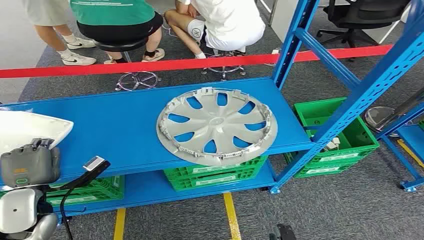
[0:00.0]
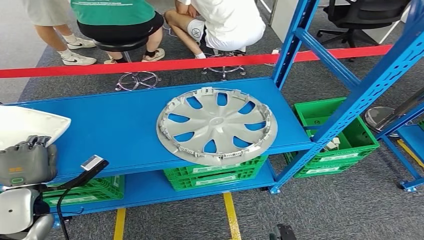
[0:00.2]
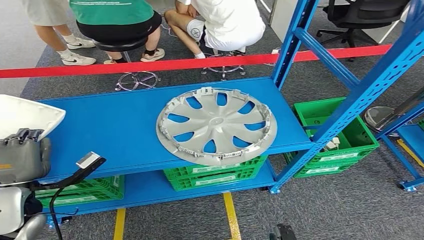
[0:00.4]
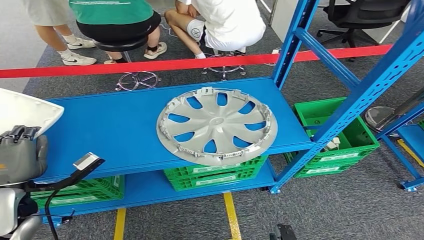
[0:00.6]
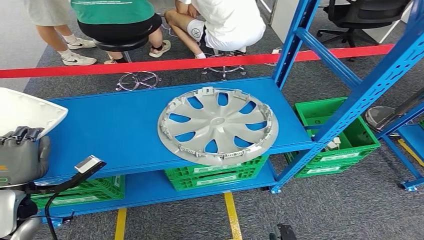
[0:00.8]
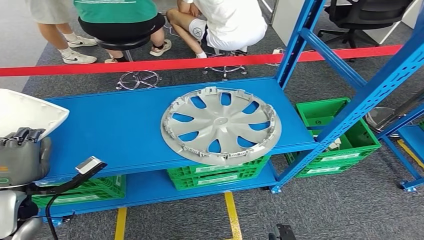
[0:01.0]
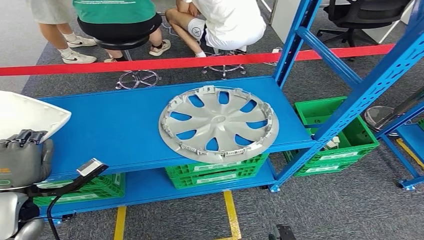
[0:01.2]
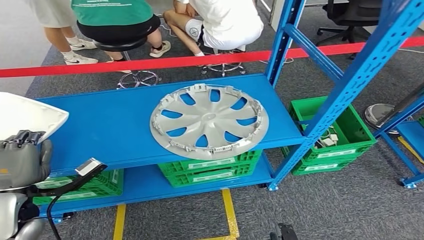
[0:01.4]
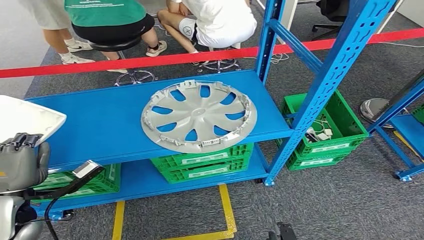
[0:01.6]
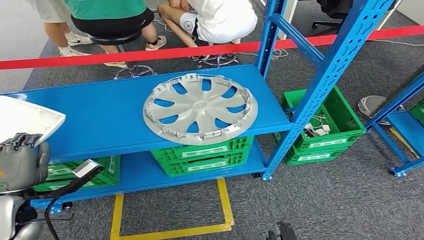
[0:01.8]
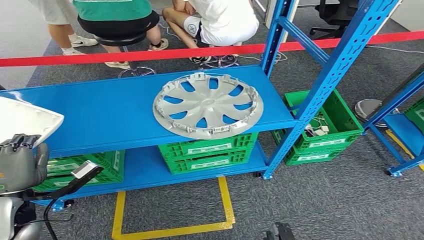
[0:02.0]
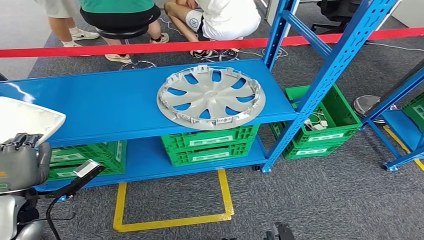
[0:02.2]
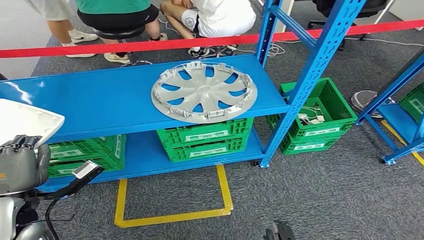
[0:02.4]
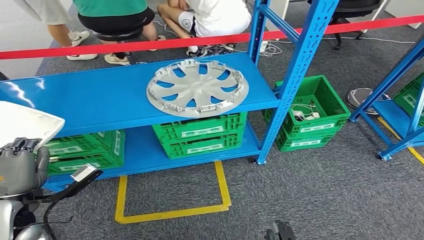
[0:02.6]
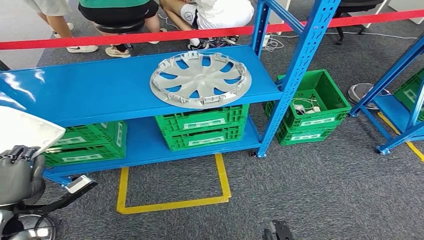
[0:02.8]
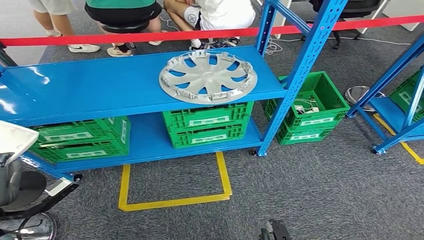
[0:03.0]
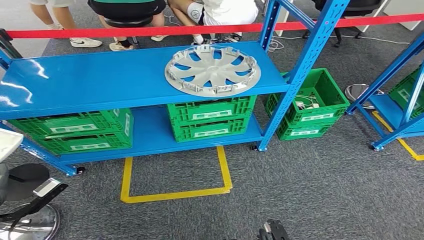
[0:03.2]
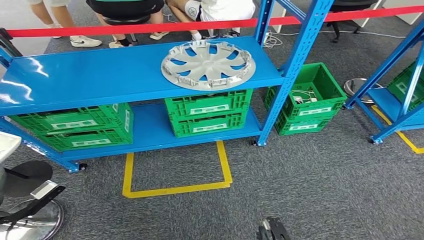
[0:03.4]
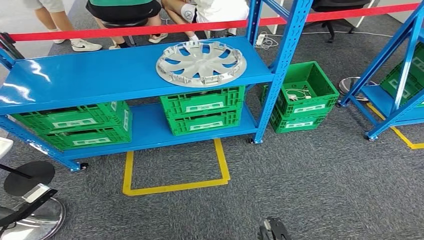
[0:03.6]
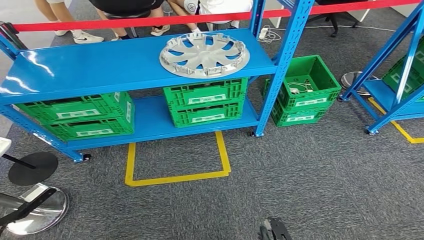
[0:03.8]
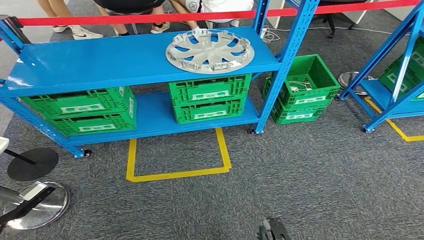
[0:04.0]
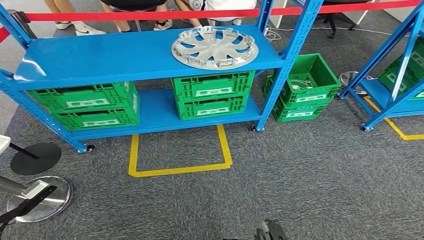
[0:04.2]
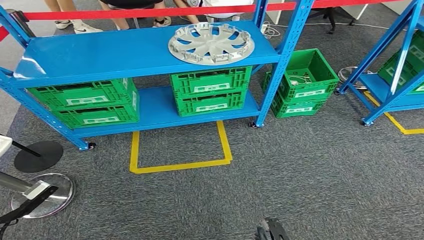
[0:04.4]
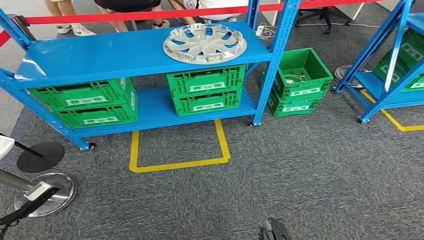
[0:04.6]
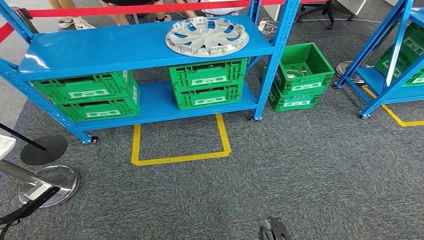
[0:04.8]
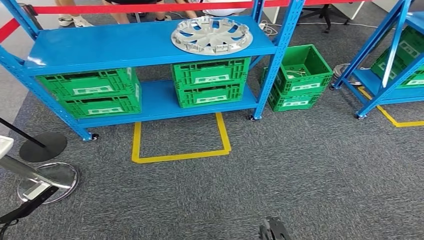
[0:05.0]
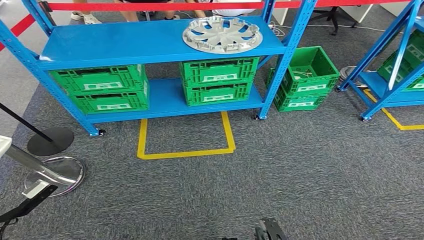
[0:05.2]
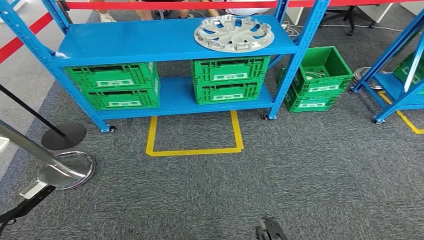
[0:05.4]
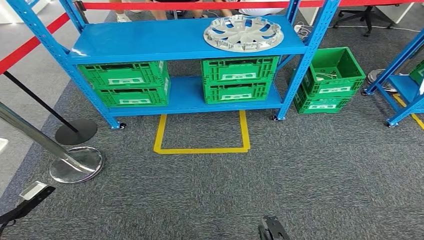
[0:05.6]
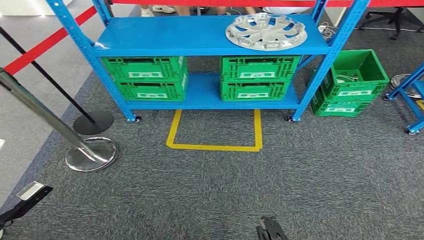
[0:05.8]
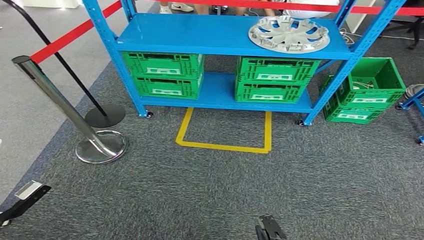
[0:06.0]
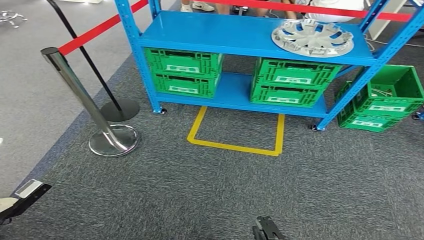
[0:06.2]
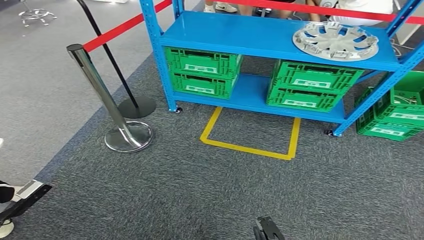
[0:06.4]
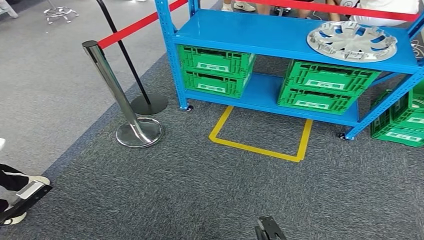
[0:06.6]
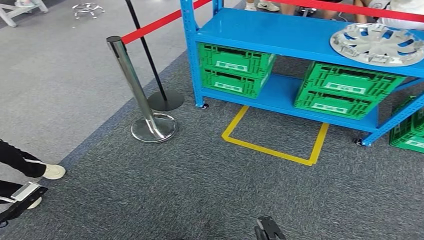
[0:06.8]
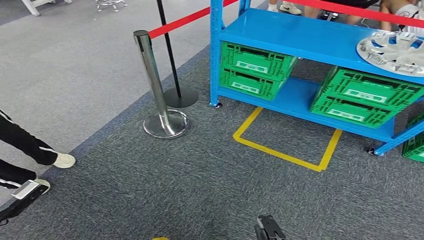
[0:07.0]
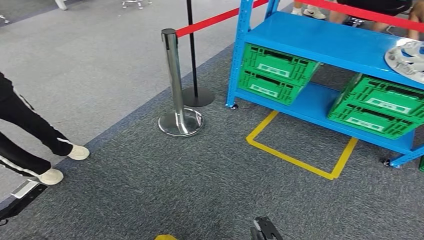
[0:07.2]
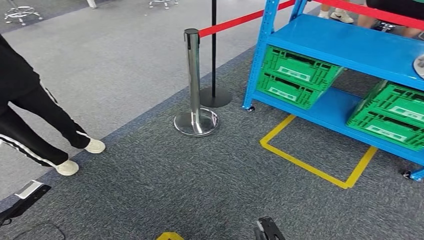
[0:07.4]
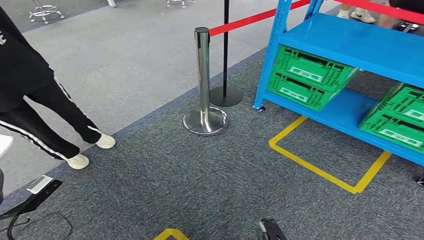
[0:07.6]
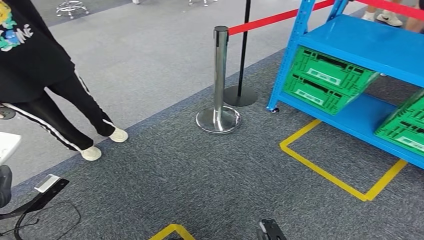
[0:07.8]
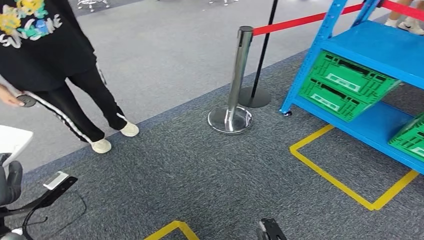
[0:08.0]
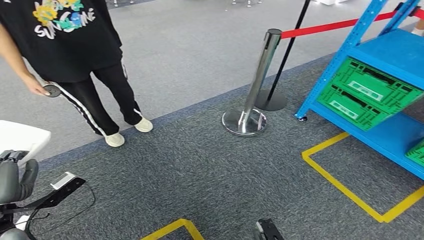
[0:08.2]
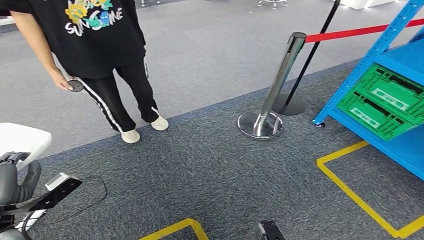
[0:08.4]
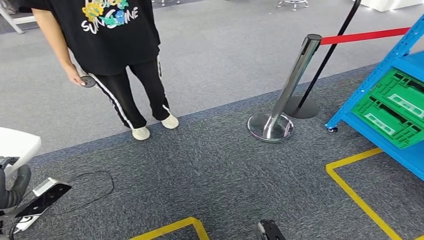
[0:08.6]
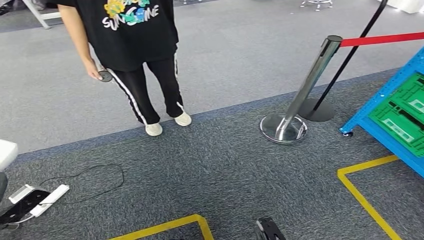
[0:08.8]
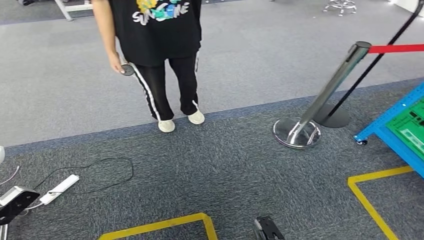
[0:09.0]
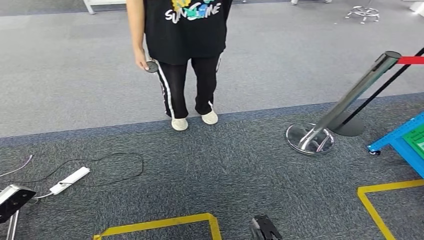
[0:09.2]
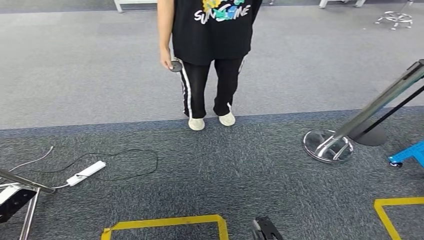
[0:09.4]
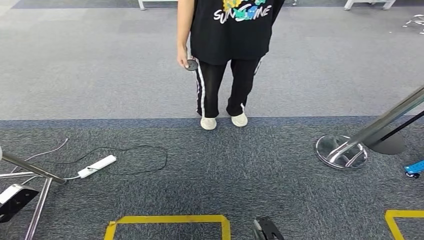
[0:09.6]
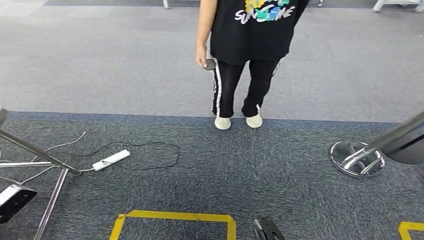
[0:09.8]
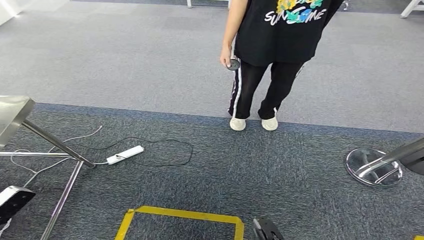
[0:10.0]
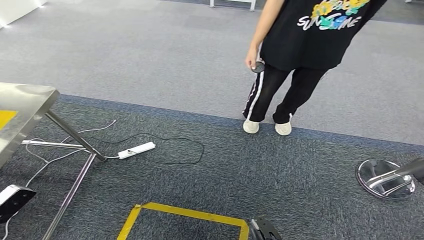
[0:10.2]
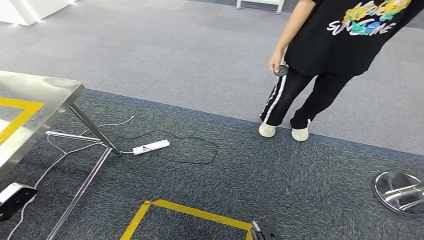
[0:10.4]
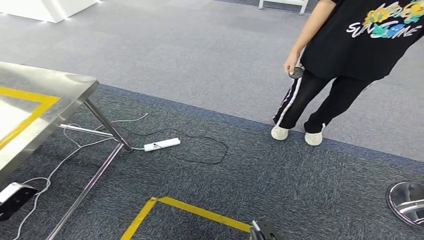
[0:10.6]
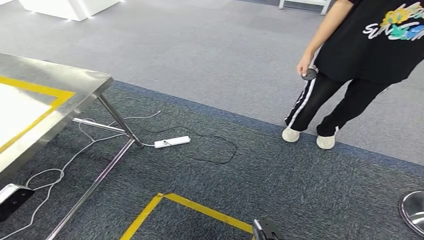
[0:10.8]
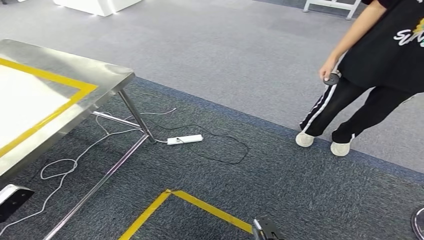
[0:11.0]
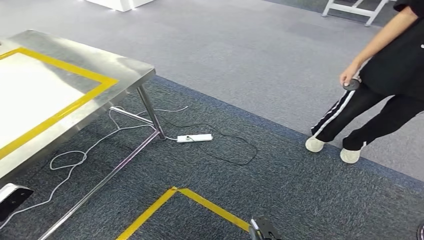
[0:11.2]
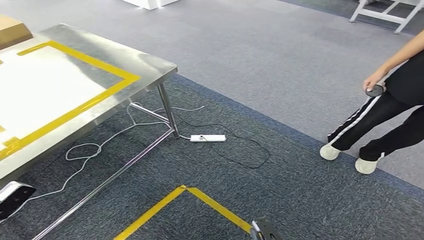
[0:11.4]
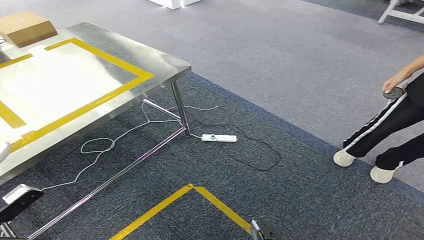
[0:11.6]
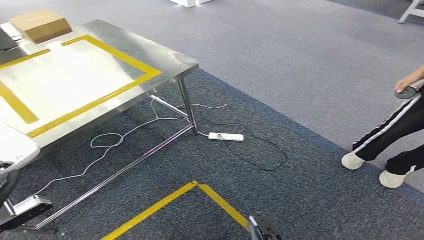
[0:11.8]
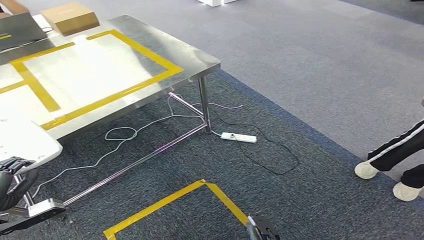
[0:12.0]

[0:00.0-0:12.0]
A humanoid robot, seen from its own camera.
Step, 0:00.0 to 0:02.2: Pick up the small parts from the shelf.

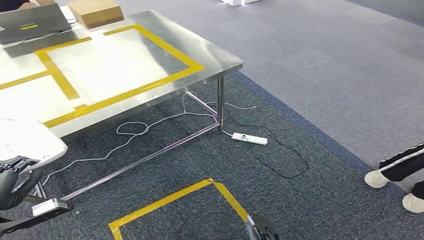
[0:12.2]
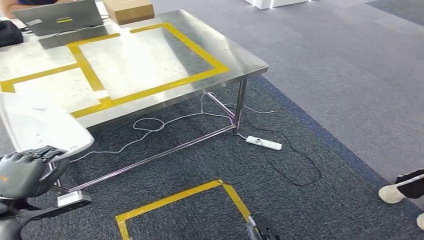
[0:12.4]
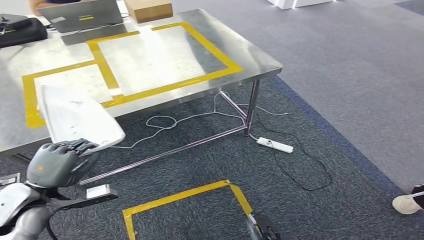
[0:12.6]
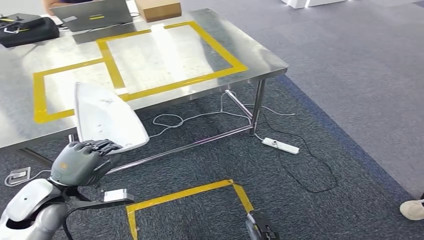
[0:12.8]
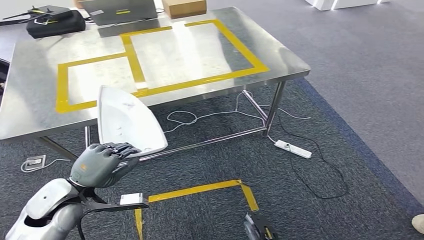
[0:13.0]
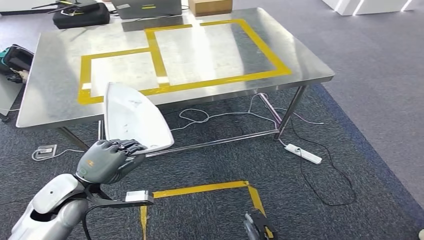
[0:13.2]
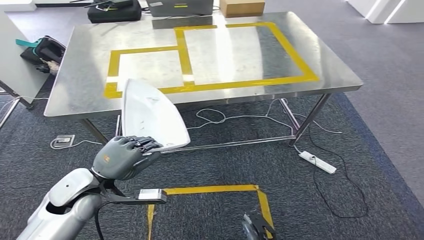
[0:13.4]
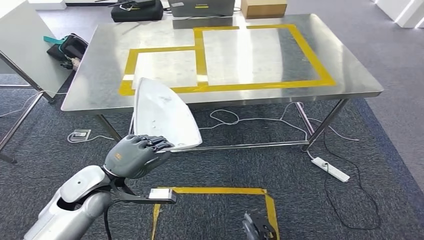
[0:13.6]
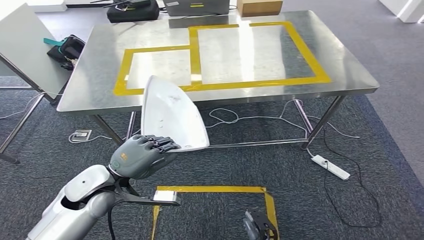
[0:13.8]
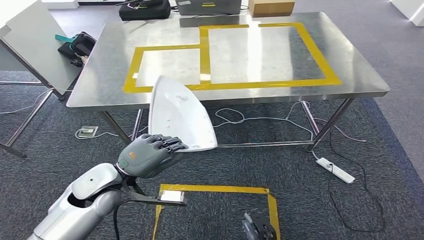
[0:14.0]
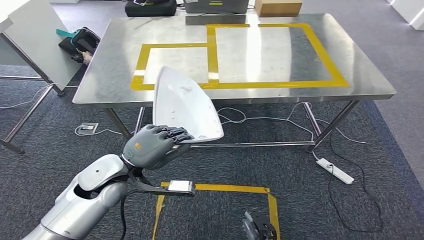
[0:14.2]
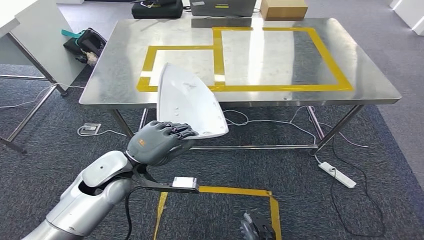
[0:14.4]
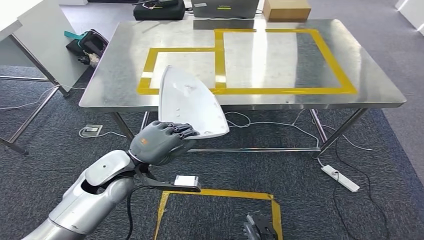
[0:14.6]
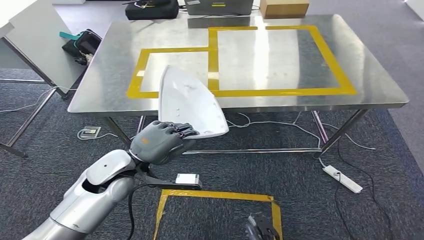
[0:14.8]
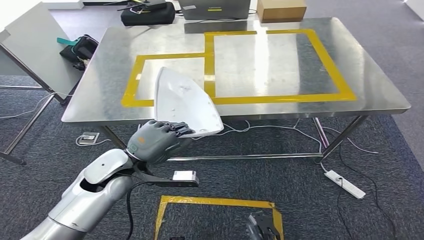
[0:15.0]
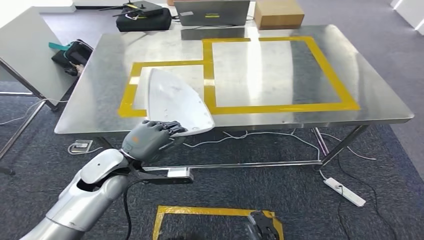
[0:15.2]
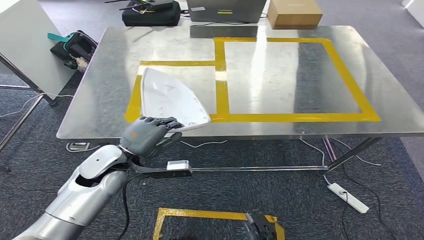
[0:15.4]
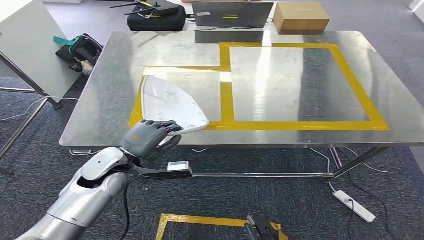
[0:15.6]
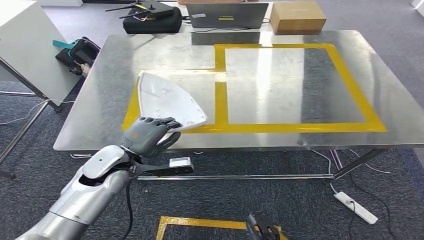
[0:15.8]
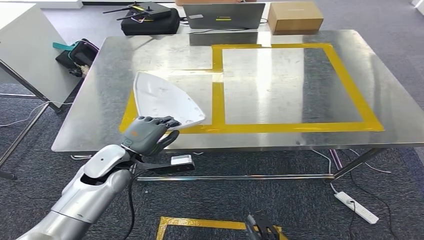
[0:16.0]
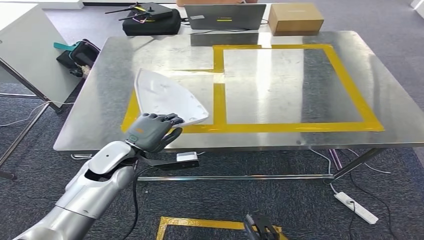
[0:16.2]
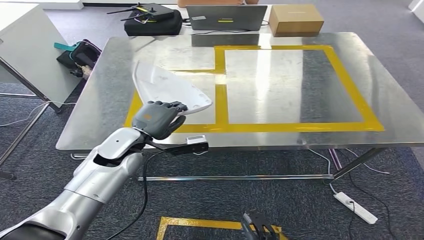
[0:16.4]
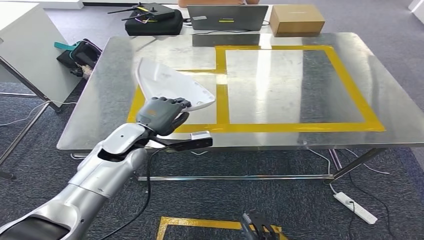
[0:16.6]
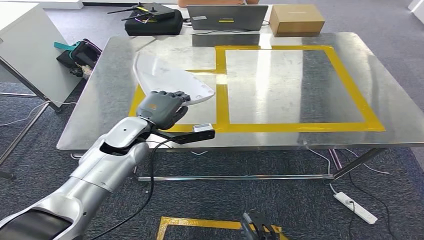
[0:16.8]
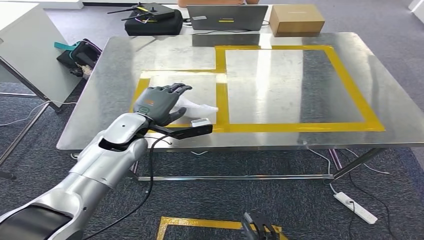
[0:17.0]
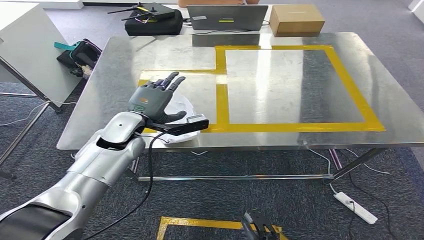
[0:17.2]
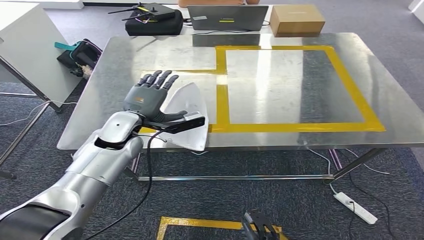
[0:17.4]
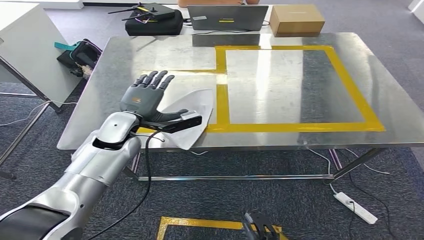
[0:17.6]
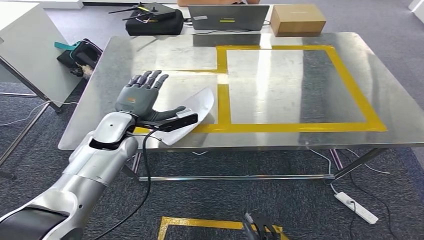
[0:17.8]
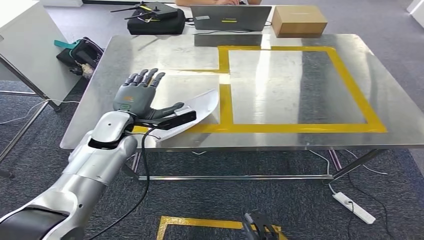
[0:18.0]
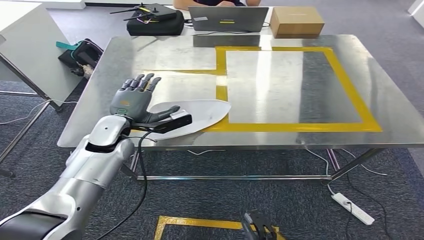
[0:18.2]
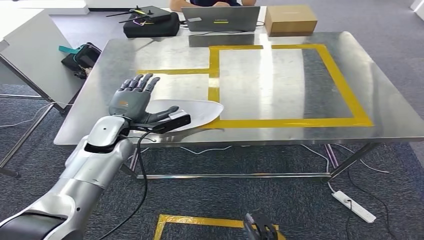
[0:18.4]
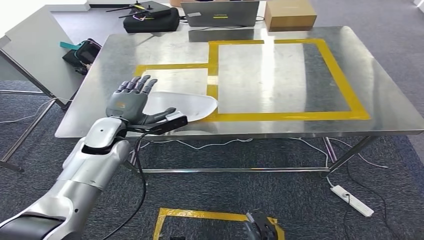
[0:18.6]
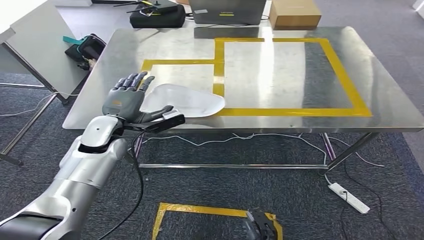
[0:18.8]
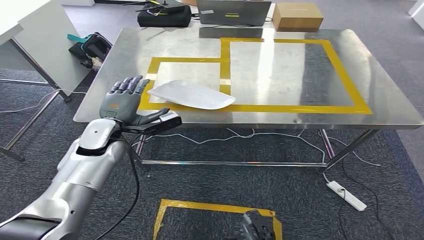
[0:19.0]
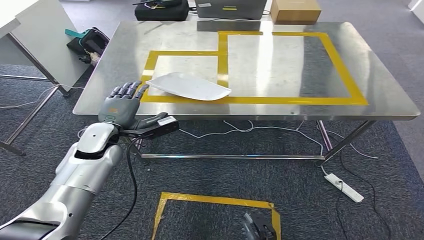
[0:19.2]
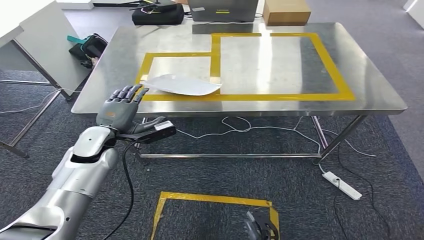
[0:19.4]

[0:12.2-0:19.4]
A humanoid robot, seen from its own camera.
Step, 0:12.2 to 0:14.2: Move the small parts to the workbench.
0:16.6 to 0:18.0: The hands move only a little.
